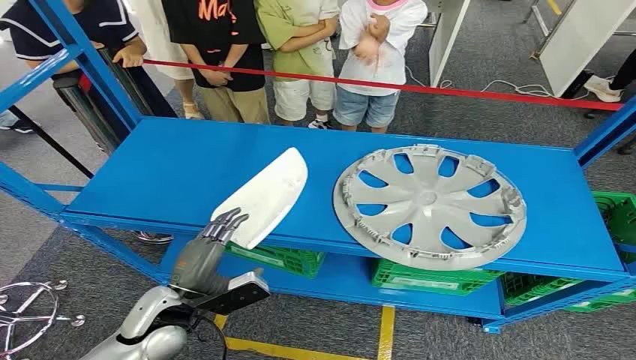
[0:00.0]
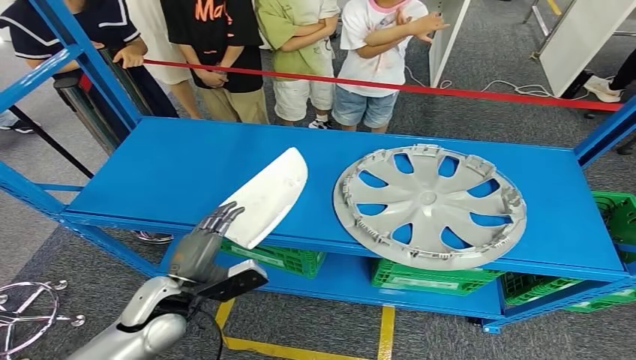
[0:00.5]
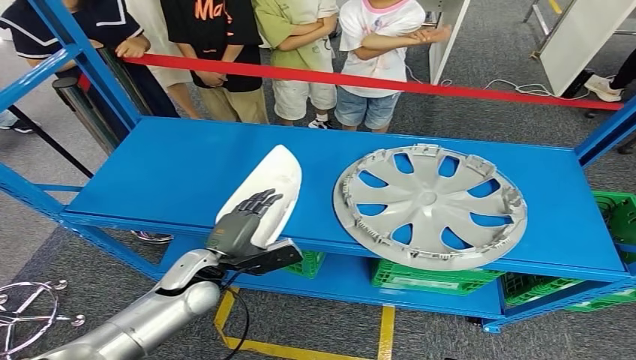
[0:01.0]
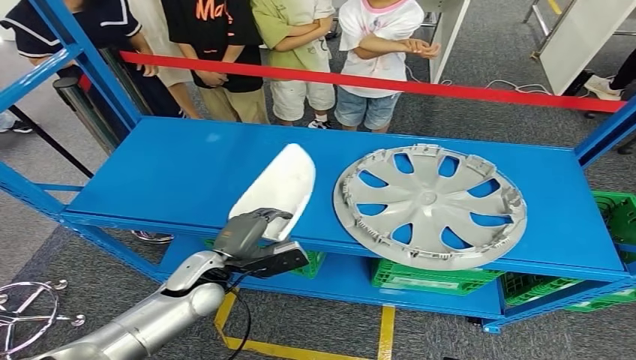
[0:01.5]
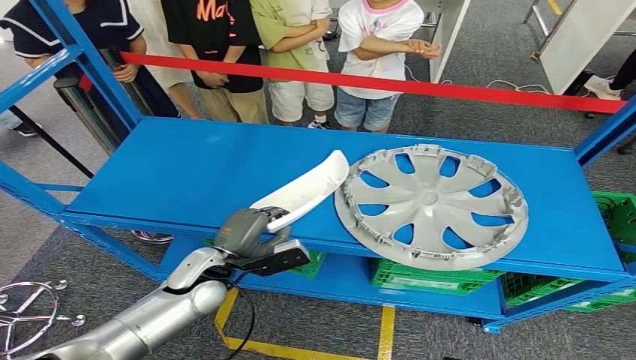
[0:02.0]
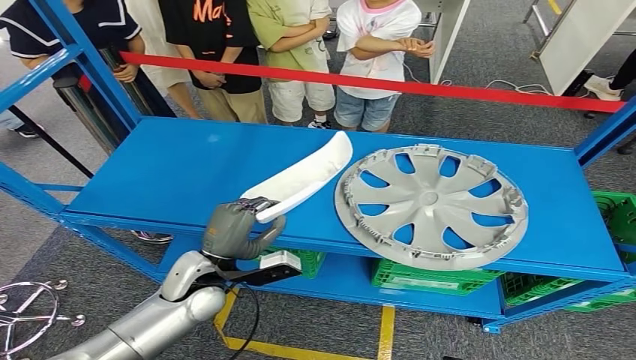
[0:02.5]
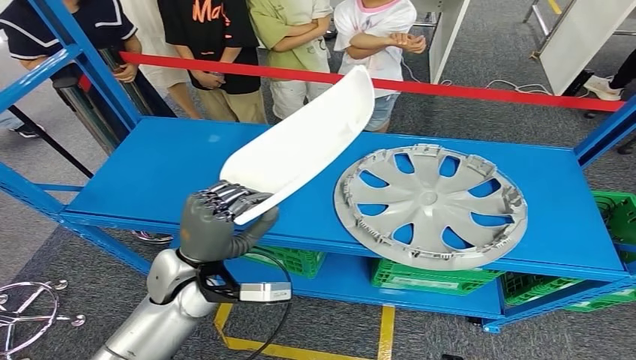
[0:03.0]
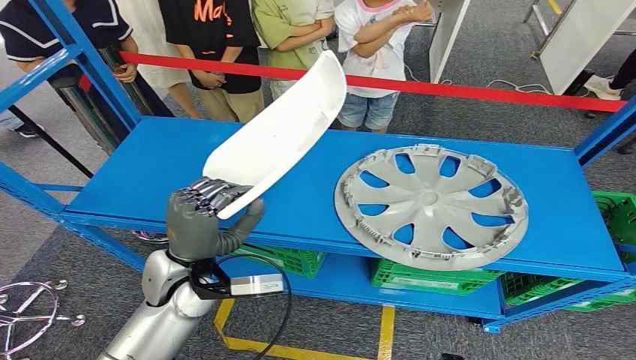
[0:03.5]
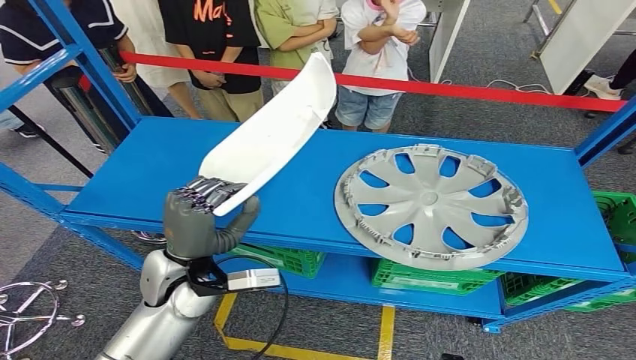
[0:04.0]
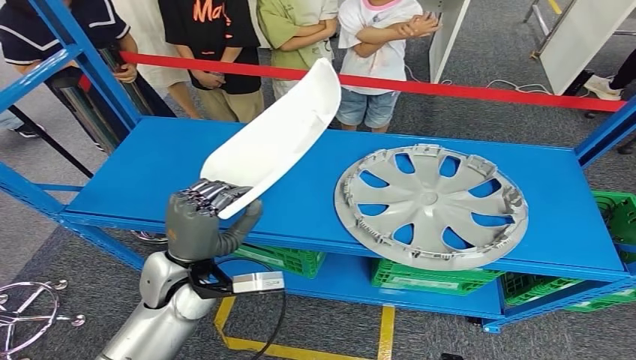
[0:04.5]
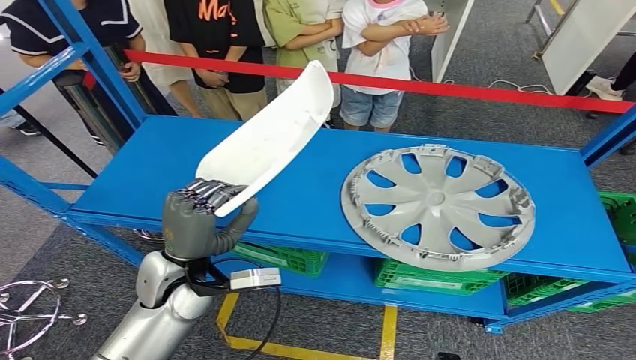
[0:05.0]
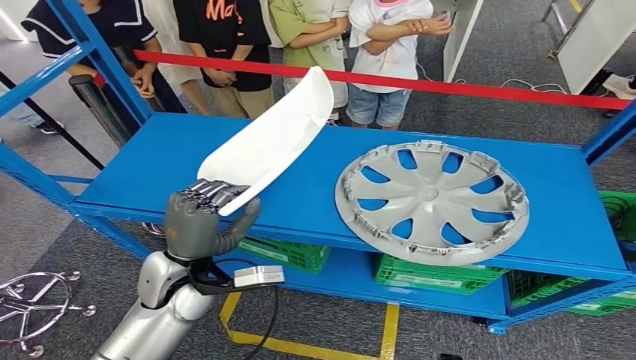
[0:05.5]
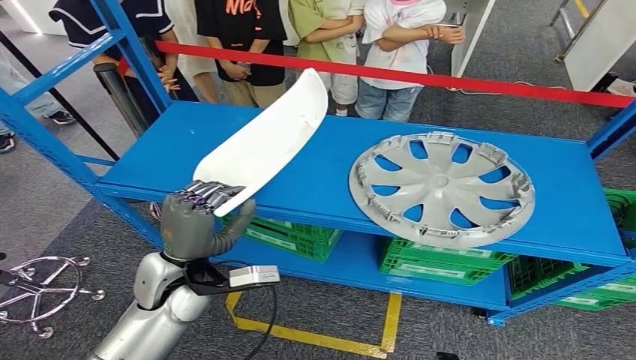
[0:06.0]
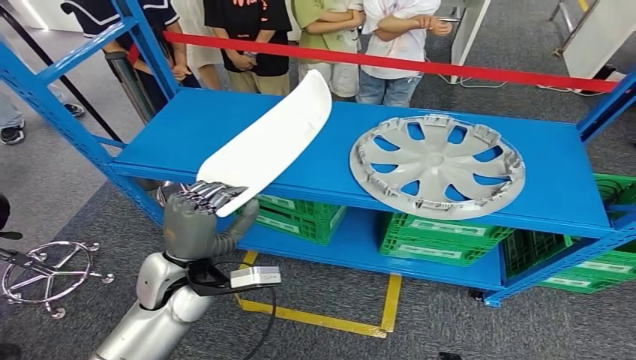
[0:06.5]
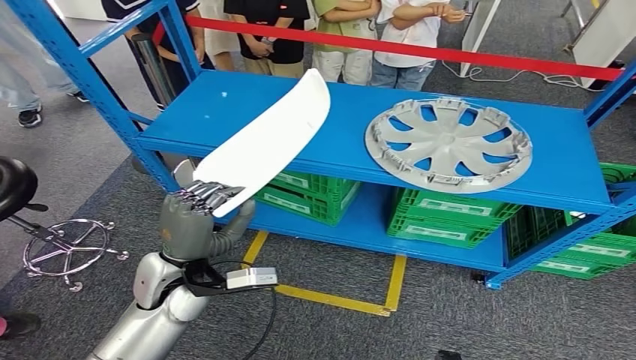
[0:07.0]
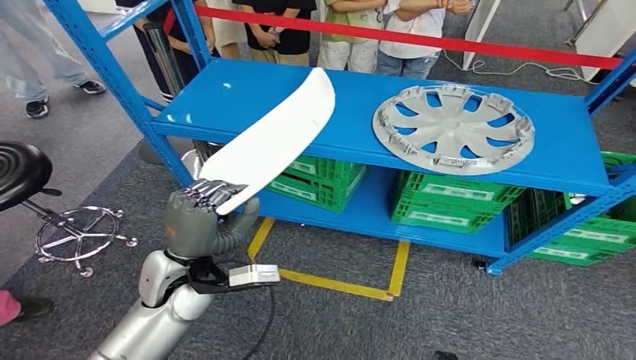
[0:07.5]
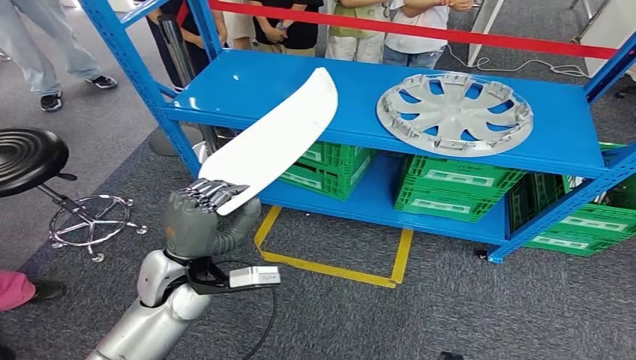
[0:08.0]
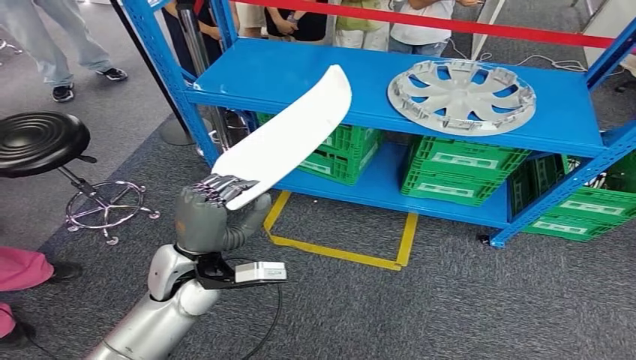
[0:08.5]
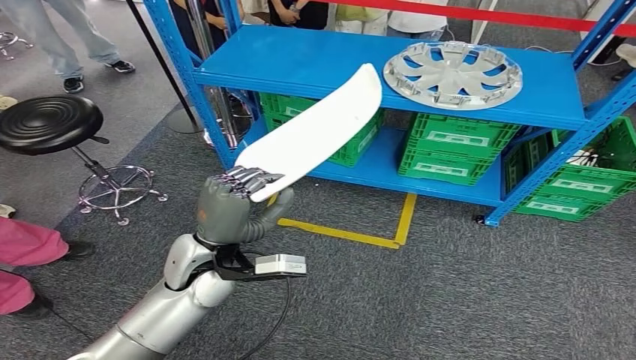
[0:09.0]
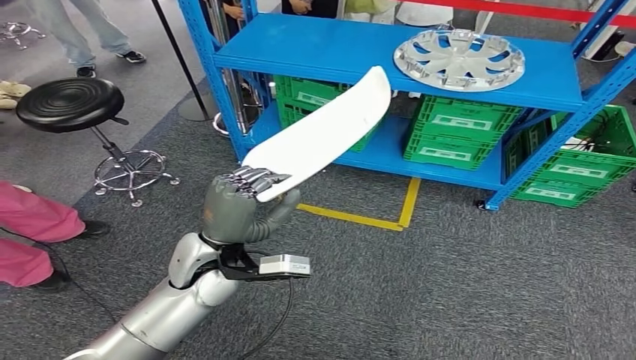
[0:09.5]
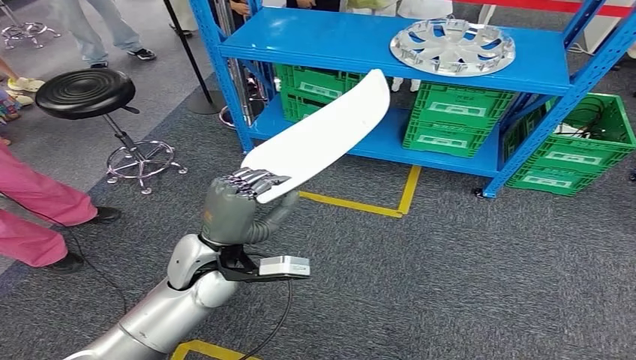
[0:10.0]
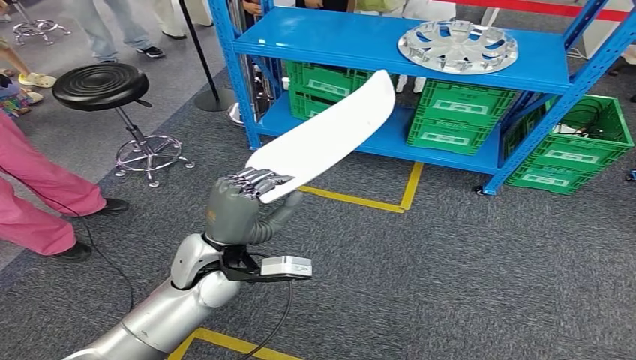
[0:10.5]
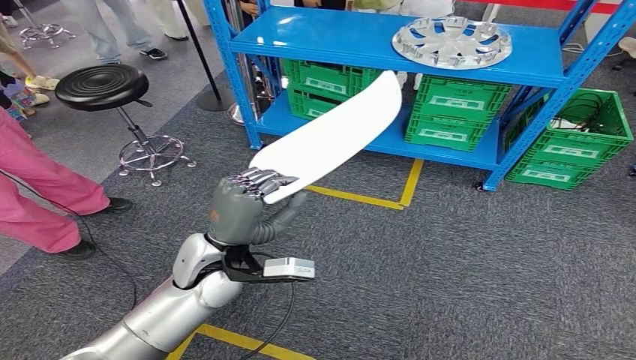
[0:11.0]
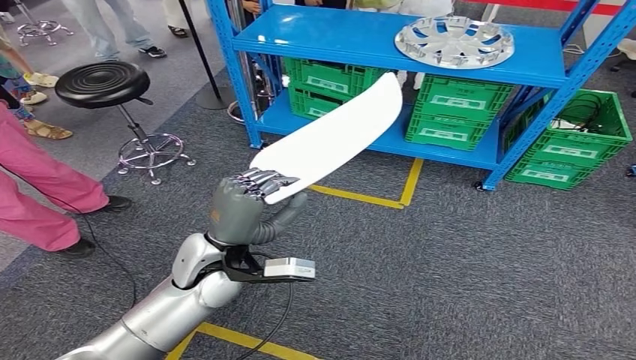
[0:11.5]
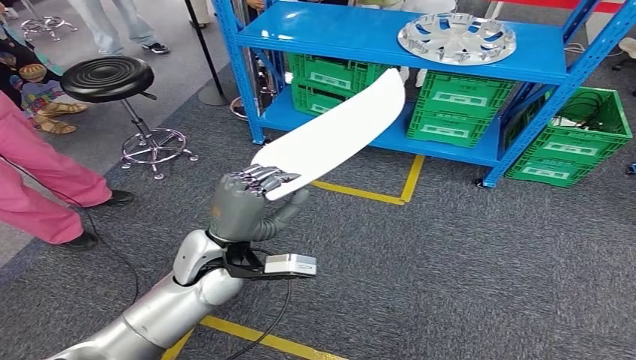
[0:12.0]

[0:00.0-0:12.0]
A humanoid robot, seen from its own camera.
Step, 0:00.0 to 0:06.5: Pick up the small component from the shelf.
0:02.0 to 0:04.0: The left hand travels upward by some 10 cm.

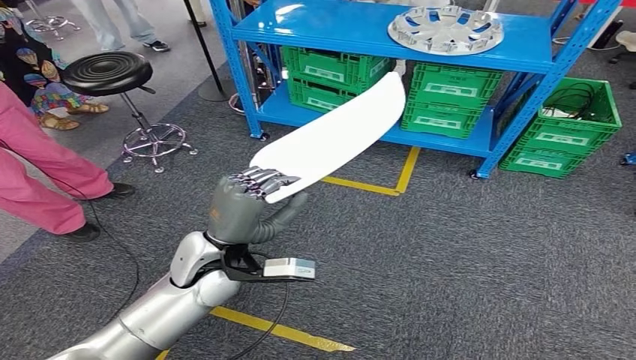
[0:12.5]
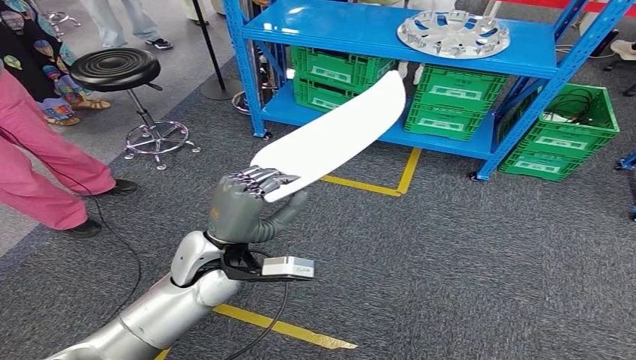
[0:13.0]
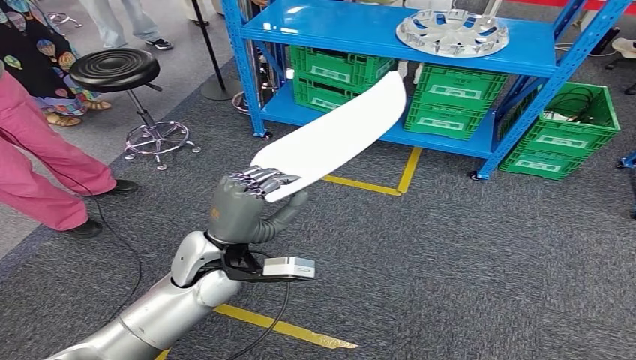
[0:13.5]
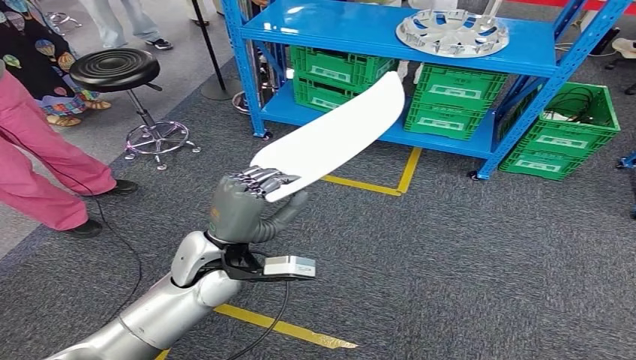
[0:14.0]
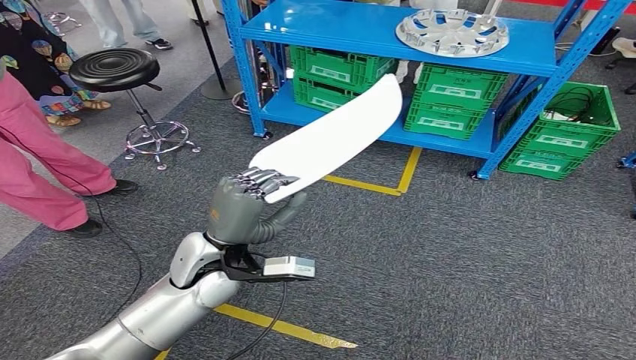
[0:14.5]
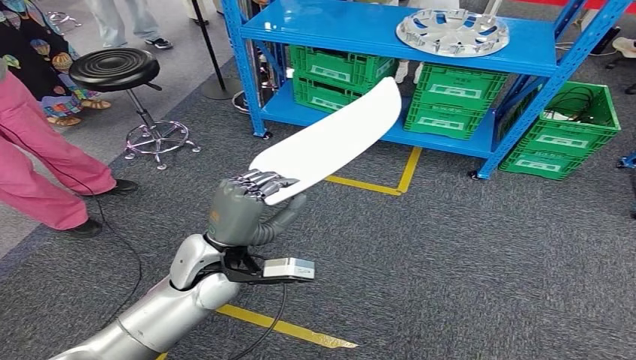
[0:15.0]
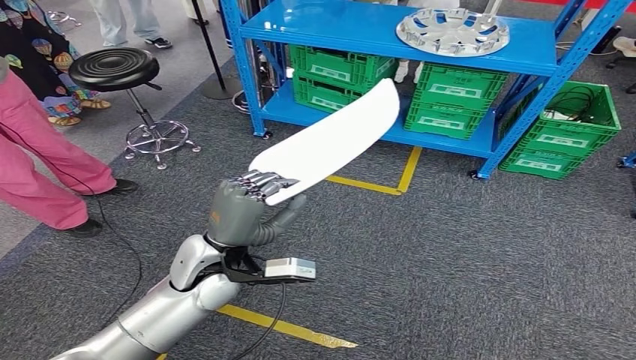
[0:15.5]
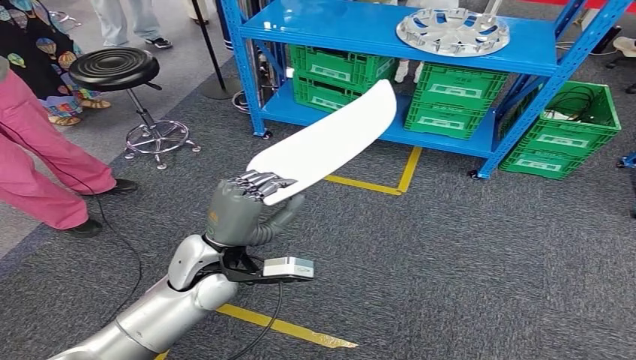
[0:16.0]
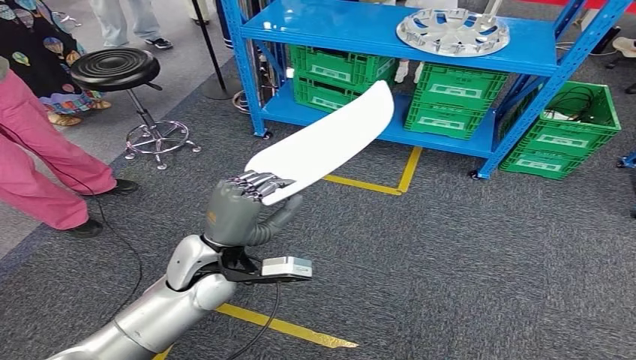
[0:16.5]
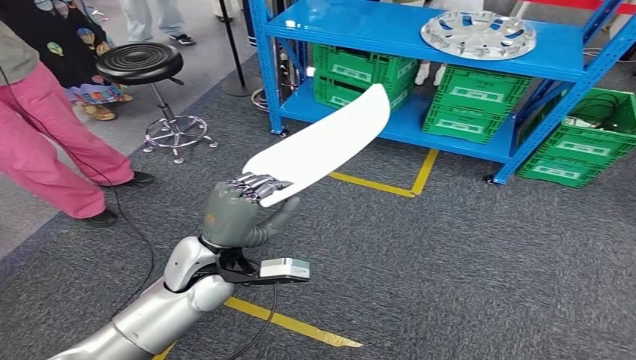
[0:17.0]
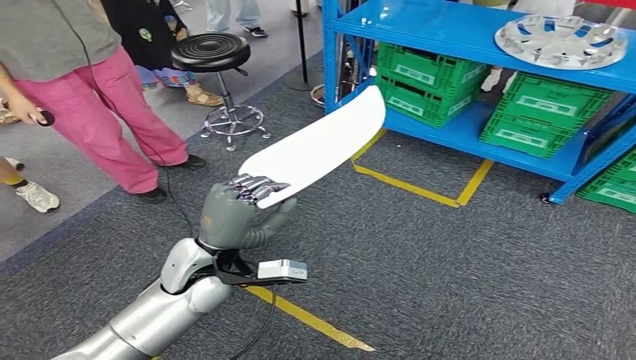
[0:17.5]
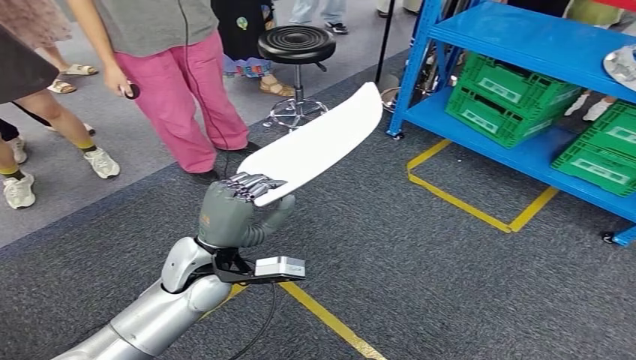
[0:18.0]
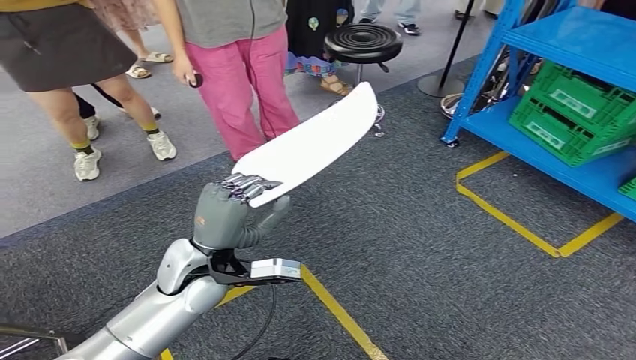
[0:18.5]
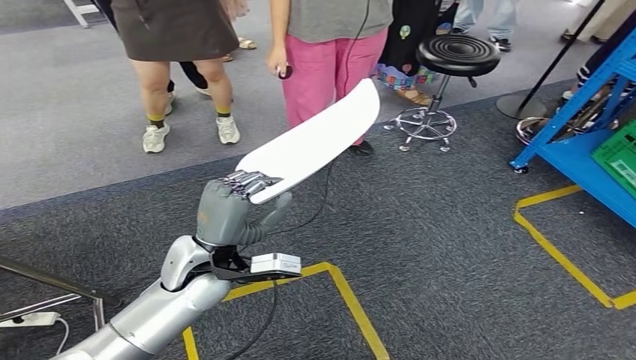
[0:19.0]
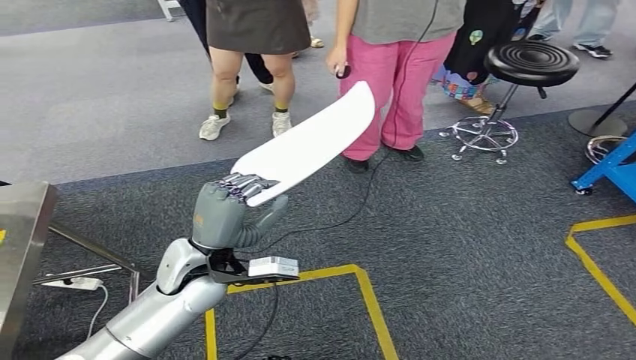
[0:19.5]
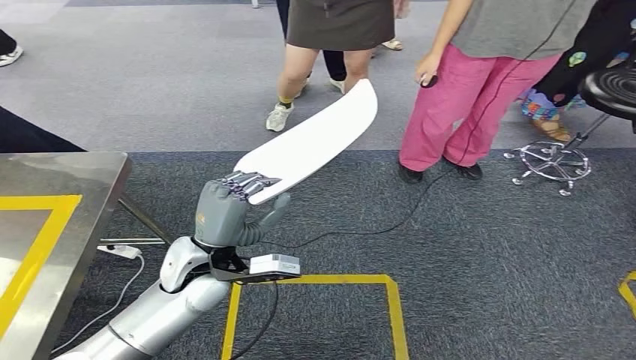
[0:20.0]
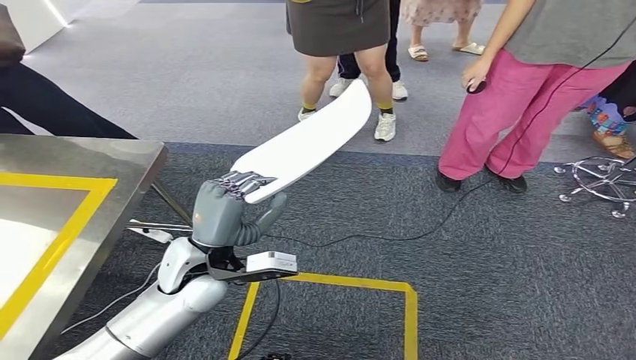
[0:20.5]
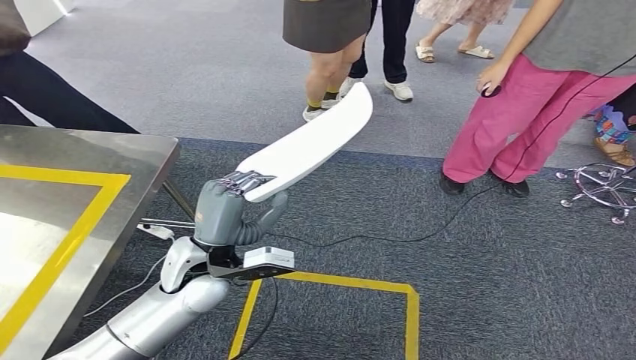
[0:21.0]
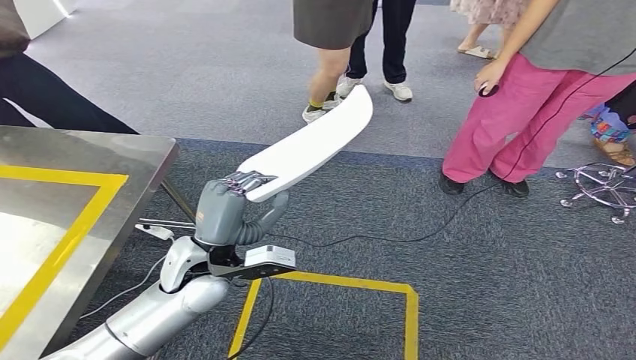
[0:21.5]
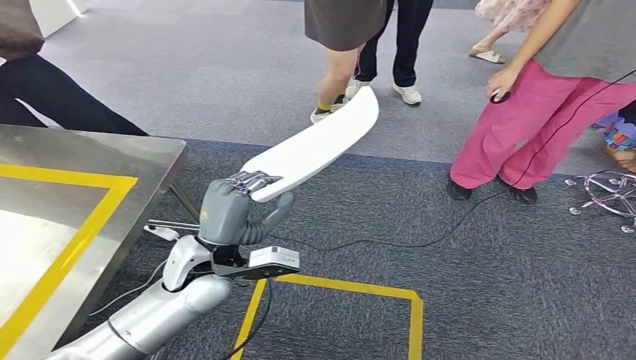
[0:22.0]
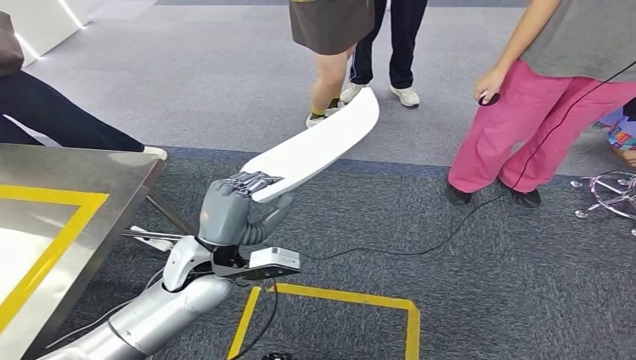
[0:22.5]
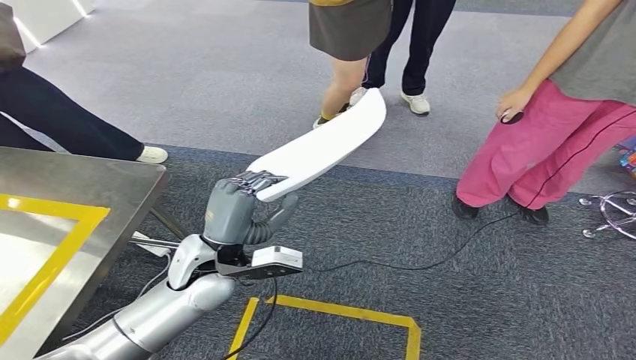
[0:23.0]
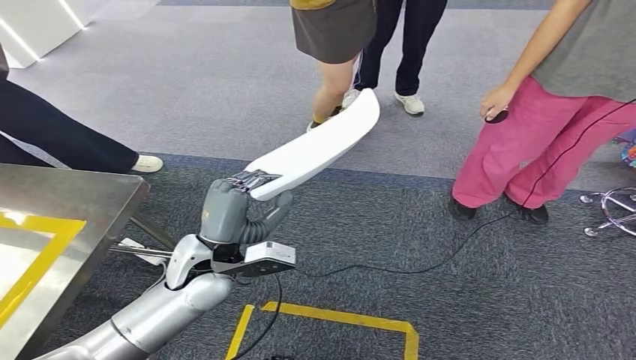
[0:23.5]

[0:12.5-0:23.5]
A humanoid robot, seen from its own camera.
Step, 0:12.5 to 0:22.5: Move the small component to the workbench.
0:12.5 to 0:16.0: Neither hand changes place.
